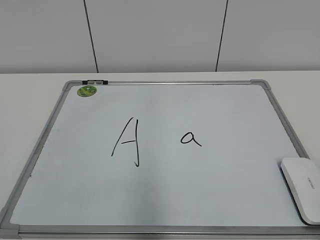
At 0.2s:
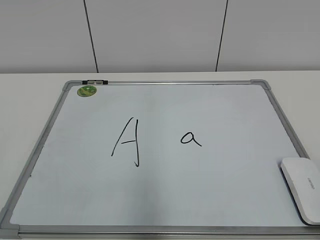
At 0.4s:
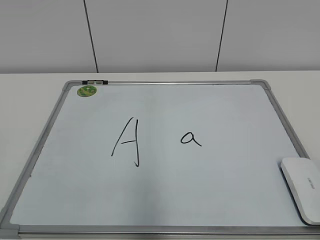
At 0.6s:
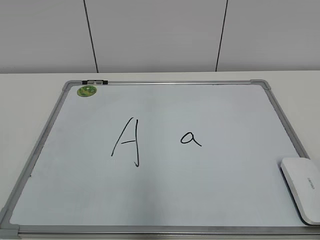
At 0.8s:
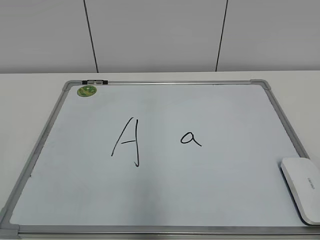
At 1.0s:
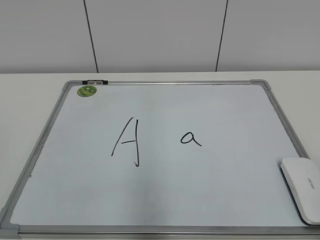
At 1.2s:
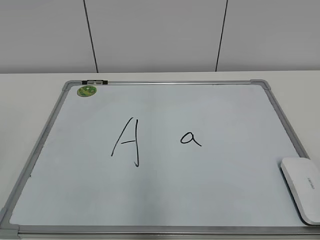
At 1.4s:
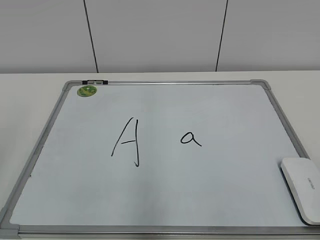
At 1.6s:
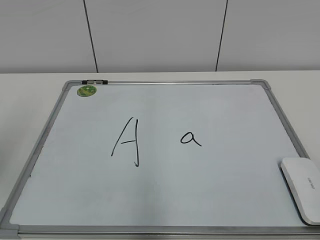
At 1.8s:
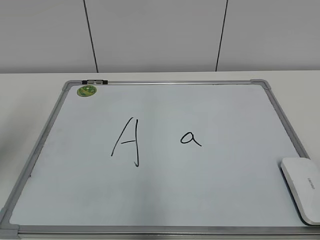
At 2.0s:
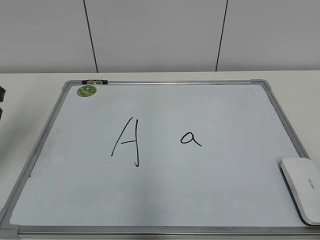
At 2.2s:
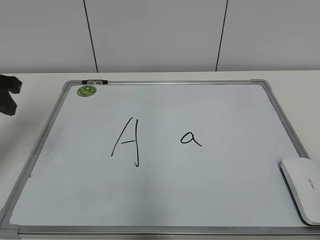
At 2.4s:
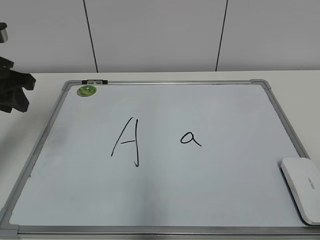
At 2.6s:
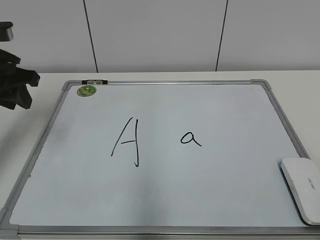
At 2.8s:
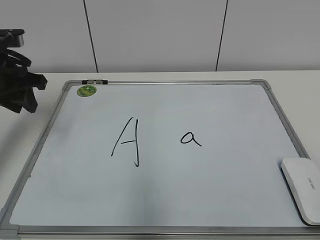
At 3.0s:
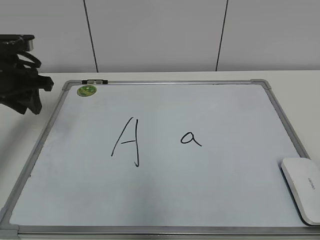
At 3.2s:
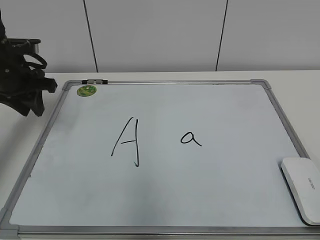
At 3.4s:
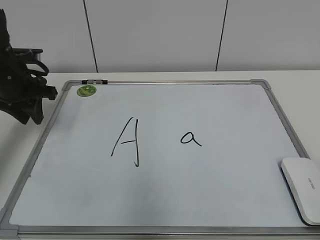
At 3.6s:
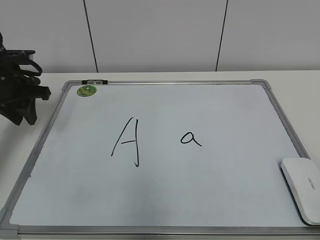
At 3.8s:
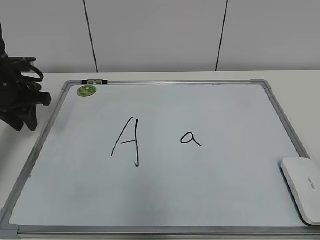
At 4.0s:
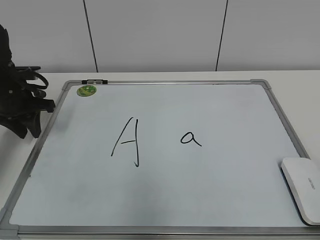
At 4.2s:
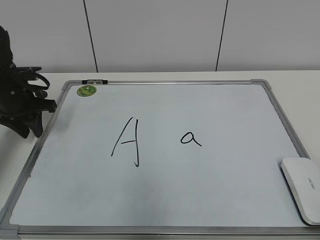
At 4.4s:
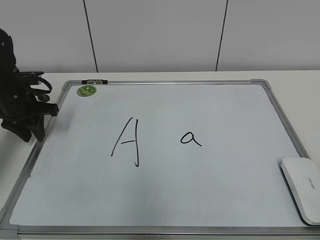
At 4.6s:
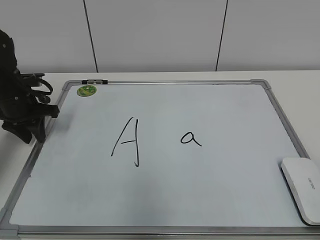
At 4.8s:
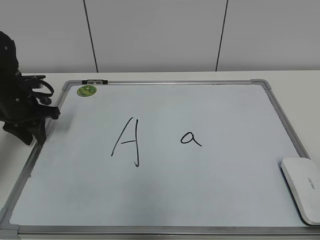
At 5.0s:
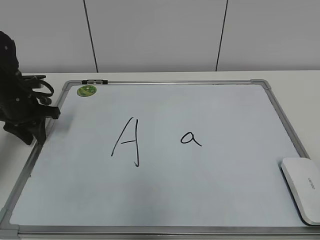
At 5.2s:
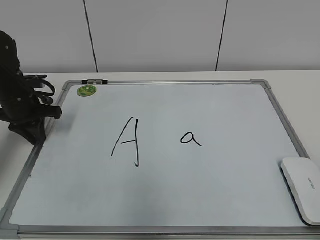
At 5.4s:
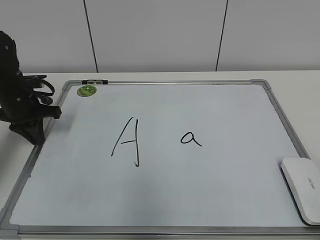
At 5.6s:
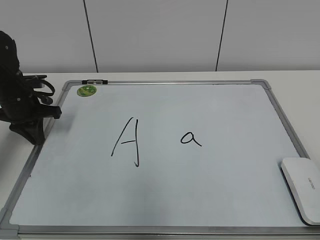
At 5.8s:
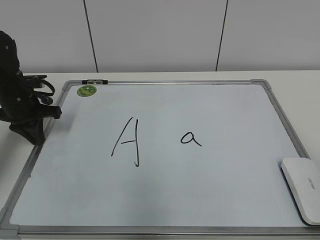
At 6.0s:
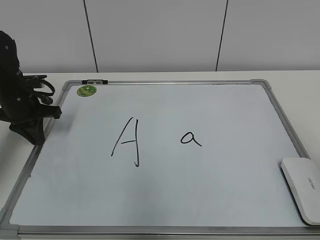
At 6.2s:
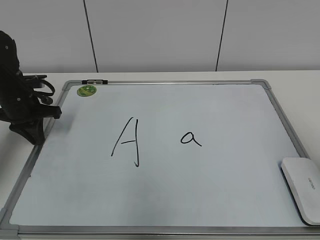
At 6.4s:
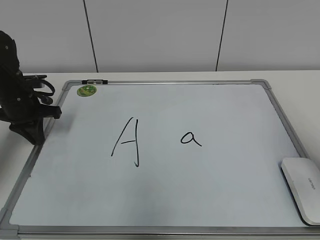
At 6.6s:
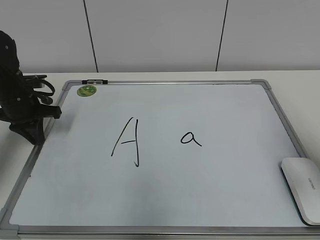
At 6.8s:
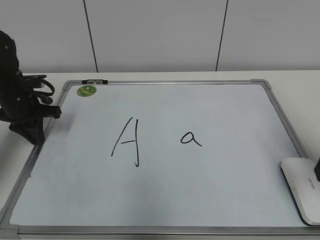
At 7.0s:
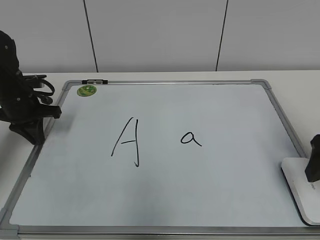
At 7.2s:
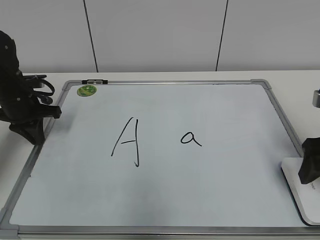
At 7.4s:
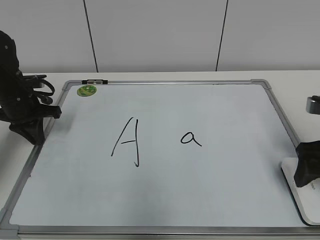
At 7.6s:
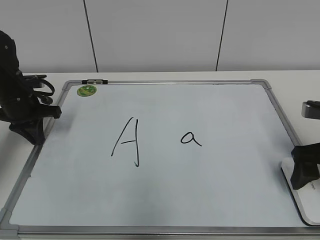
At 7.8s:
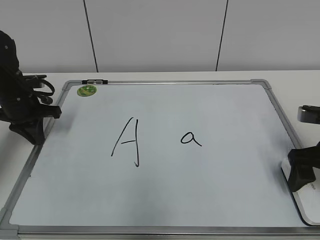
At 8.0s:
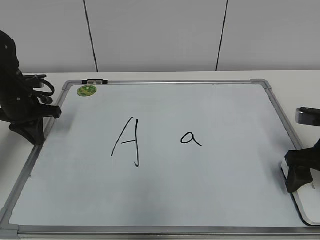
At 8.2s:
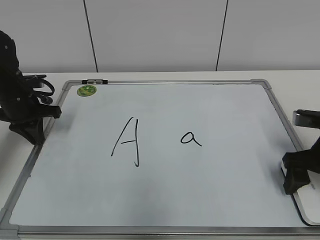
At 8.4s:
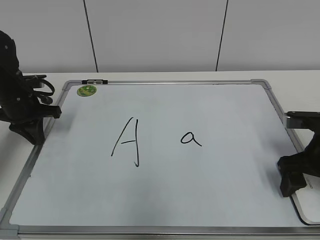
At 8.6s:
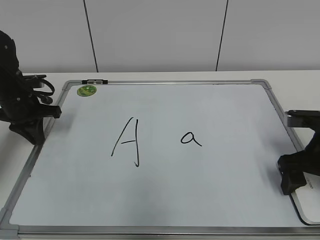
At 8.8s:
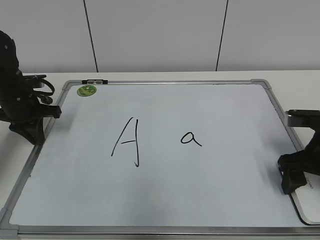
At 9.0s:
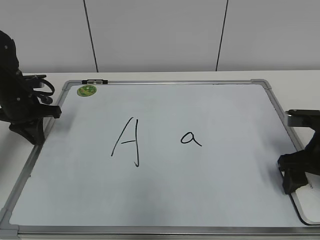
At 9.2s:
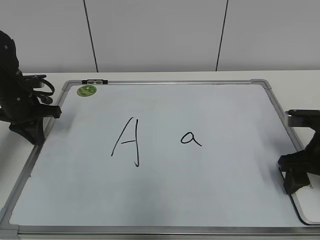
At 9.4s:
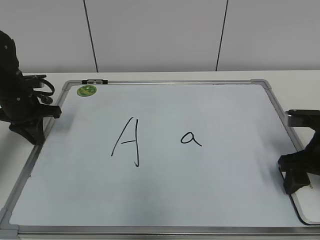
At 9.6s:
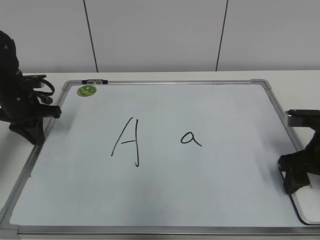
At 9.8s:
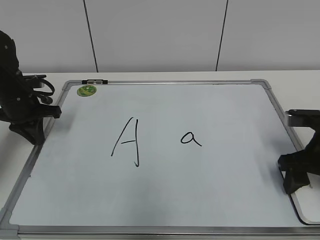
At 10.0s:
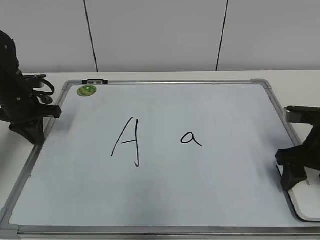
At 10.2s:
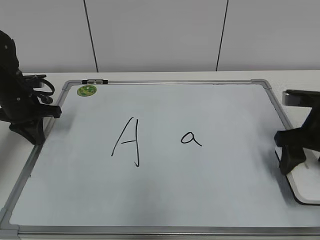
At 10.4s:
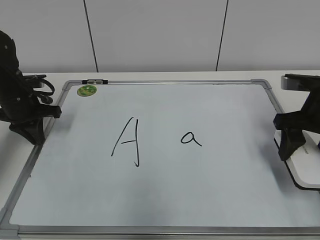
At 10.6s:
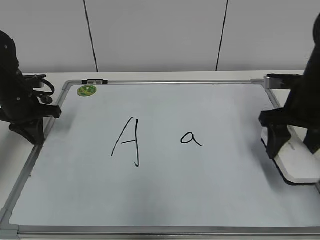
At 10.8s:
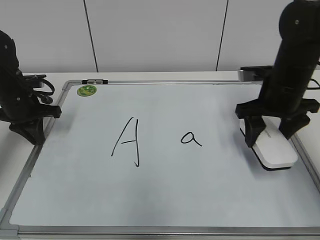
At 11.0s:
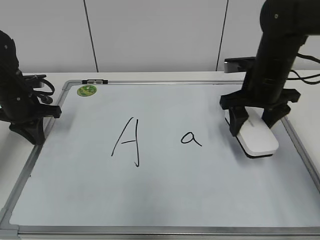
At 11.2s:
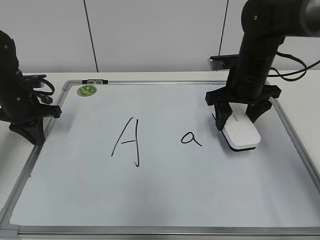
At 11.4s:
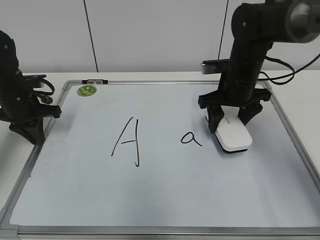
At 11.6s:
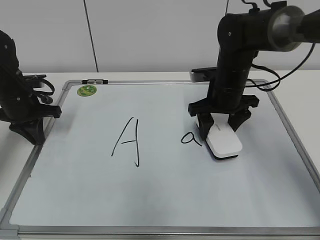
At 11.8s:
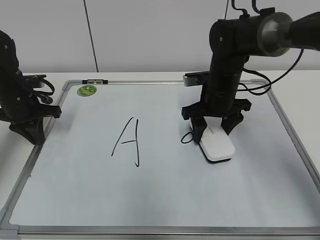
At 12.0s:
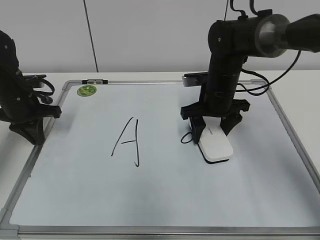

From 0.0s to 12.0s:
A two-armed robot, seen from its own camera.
Task of the whole recording: pick up the eraser on the blackboard and erase the letter "a".
Step, from 0.0s to 5.0s: Hold the drawing board steady with your left hand.
Step, from 5.4s to 9.6s: Grab the eraser with your right hand.
From 1.6s to 3.0s: The left gripper travels forward by approximately 20 cm.
From 3.0s to 4.4s: The left gripper travels downward by some 10 cm.
From 4.4s to 6.0s: The left gripper closes its fingers.
From 6.0s to 7.6s: The right gripper travels forward and downward by approximately 20 cm, and opens its fingers.
From 7.6s to 9.0s: The right gripper closes up.
From 9.0s to 10.4s: The right gripper goes about 5 cm upward, and closes its fingers.
From 10.4s to 12.0s: The right gripper is displaced to the left and forward by some 20 cm.

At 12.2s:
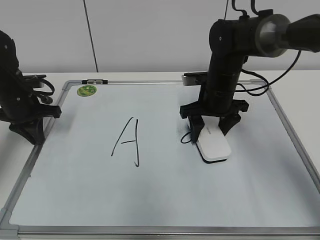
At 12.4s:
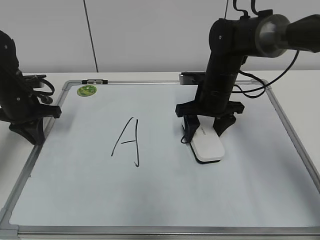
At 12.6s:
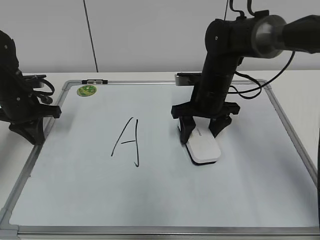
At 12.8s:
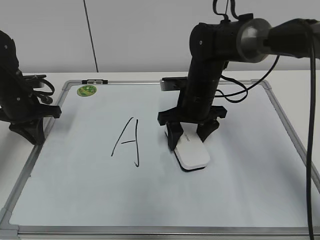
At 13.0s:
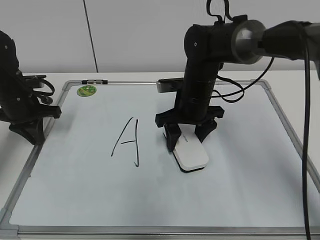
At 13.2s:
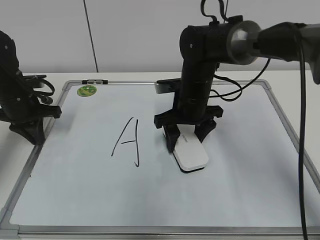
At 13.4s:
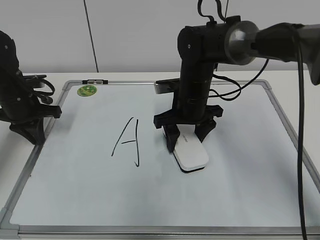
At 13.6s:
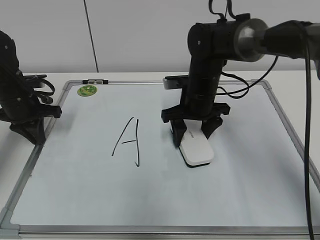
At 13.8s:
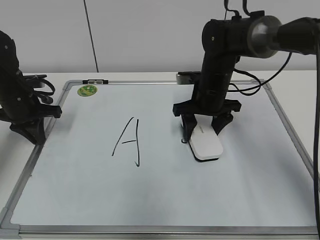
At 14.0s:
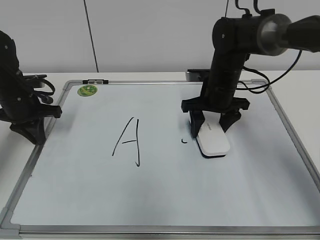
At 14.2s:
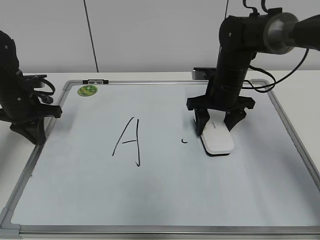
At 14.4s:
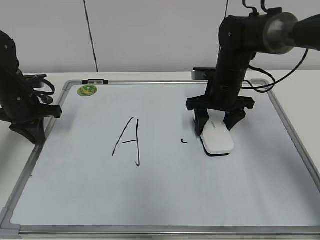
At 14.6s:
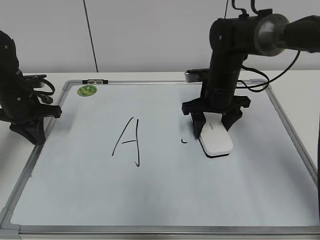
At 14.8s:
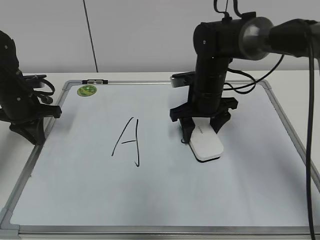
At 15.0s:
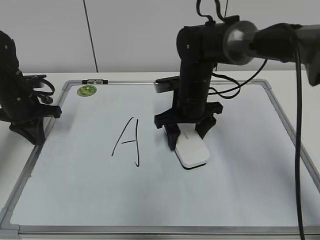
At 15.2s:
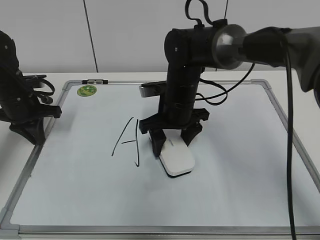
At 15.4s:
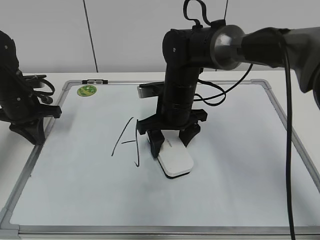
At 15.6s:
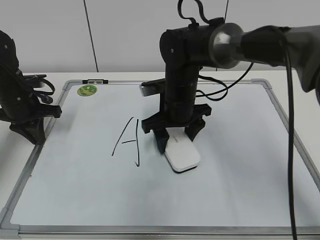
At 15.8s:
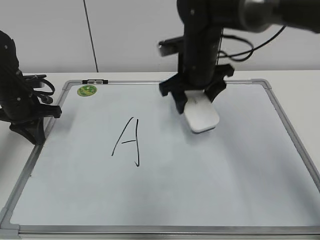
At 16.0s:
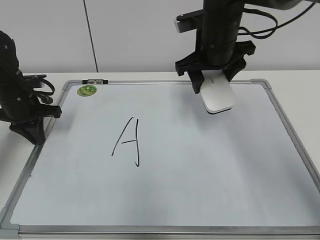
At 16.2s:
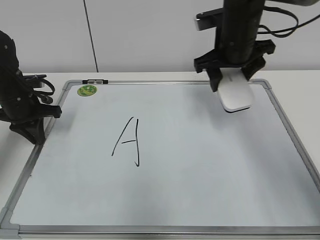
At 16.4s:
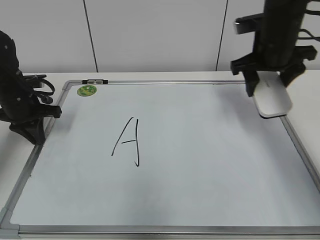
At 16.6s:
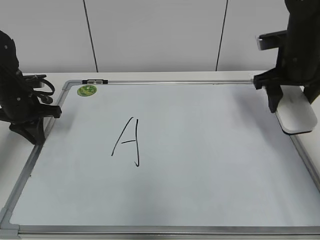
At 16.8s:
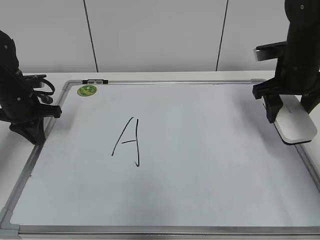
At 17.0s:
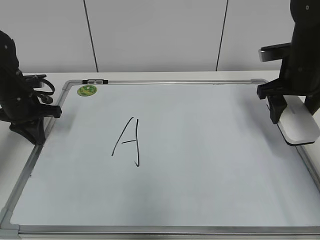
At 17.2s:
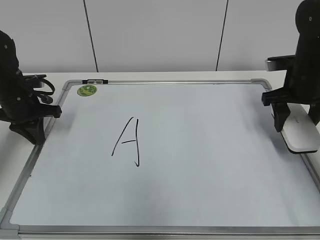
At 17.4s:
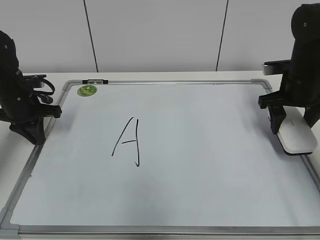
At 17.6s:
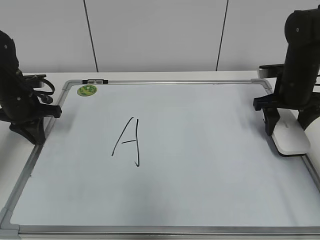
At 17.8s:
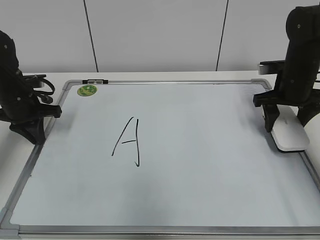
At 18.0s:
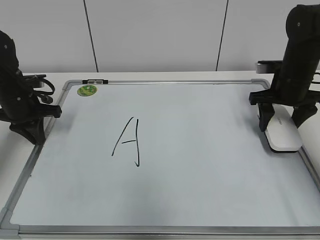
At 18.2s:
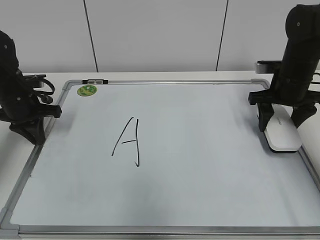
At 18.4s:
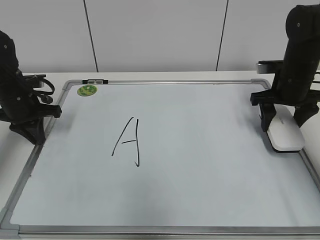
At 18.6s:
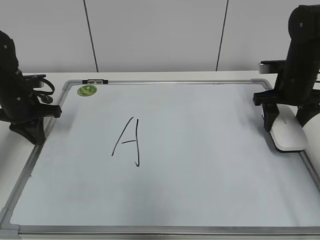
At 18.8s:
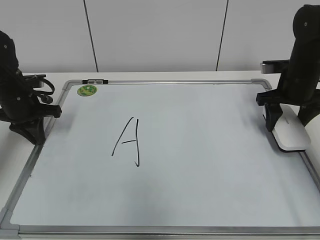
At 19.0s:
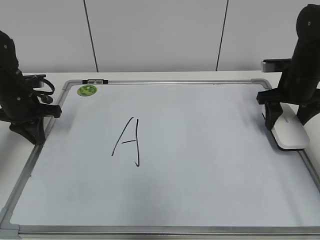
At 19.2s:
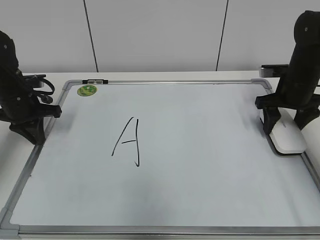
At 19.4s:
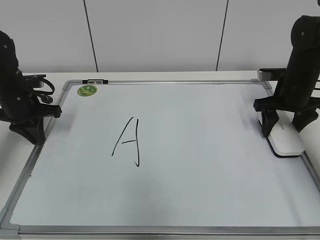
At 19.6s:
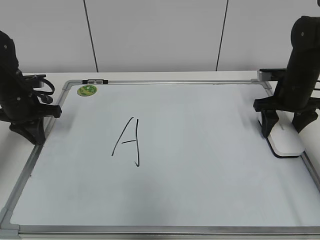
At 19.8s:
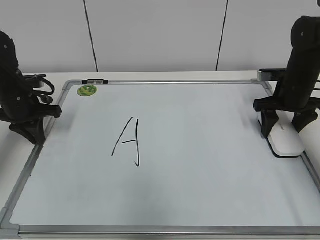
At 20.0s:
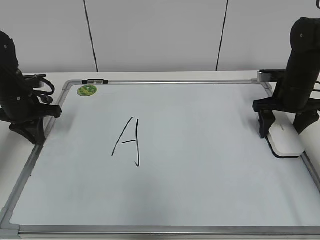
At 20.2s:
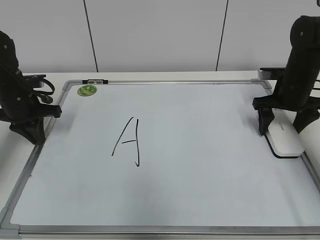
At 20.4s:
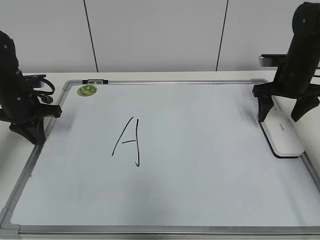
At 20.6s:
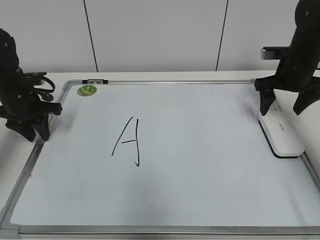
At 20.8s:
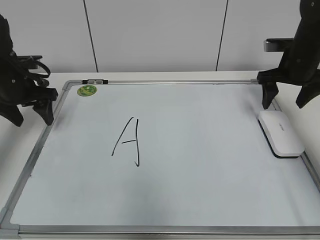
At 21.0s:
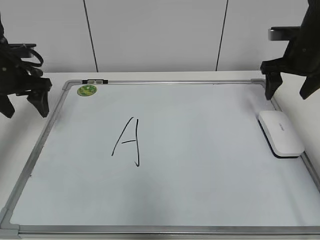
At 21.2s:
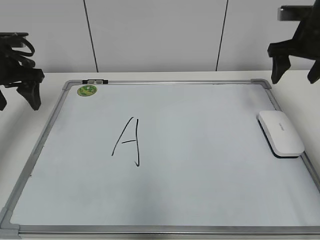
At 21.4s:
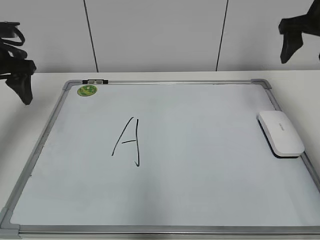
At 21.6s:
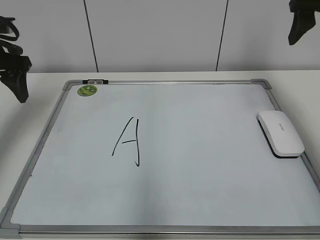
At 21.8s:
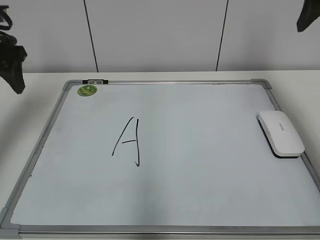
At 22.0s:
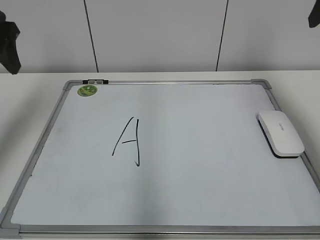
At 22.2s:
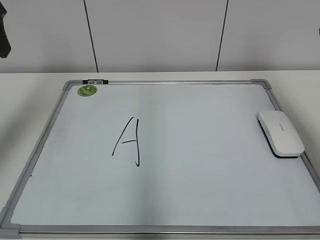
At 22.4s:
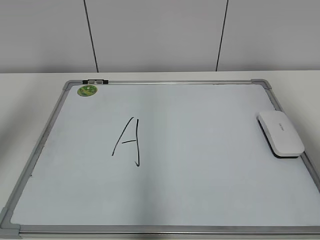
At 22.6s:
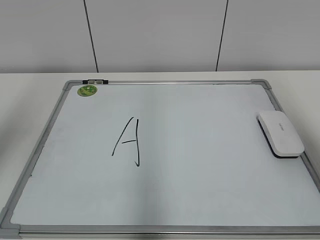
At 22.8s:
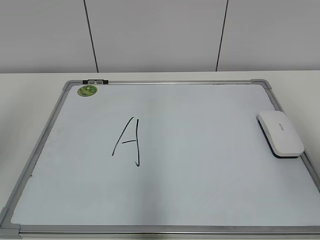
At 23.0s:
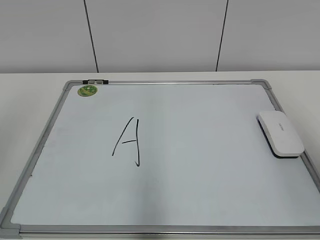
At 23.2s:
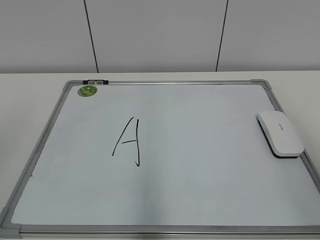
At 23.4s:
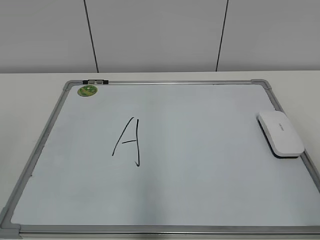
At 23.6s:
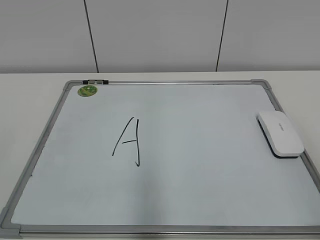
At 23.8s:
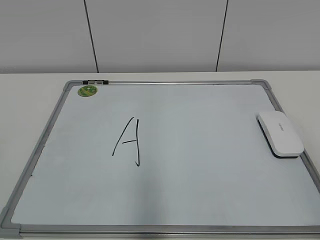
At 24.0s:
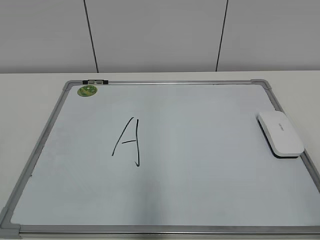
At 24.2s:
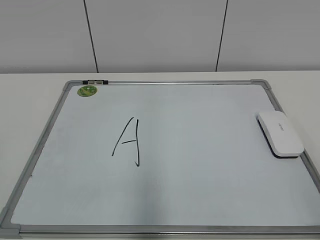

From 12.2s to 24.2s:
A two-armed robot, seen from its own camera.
Task of the whole recording: pick up the eraser on the blackboard and erase the letter "a".
Step, from 12.2s to 15.4s: Erase the letter a with your right hand.
Step, from 15.6s to 19.8s: Put down the eraser with your right hand.
From 12.2s to 13.8s: The grippers make only small movements.
From 13.8s to 15.2s: The right gripper is displaced to the left by some 5 cm.
From 15.2s to 16.6s: The right gripper heads to the right and upward, covering some 20 cm.
From 16.6s to 18.2s: The right gripper goes roughly 5 cm downward.
From 18.2s to 19.8s: The grippers stay close to where they were, moving slightly.
From 19.8s to 21.2s: Both grippers travel together upward, approximately 10 cm. The left gripper opens. The right gripper opens its fingers.
From 21.2s to 22.6s: Both grippers travel together backward and upward, about 25 cm. The right gripper closes up.
From 22.6s to 24.2s: The two grippers go approximately 25 cm backward and downward.
